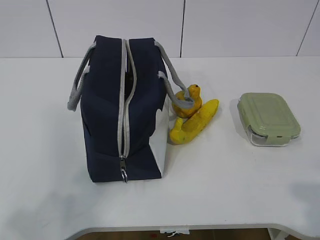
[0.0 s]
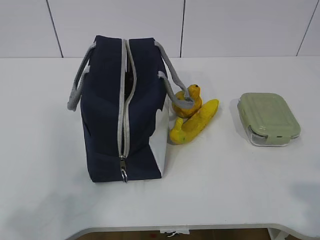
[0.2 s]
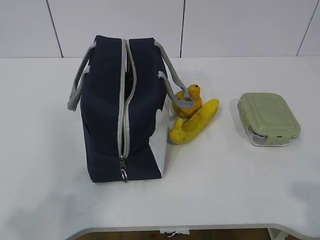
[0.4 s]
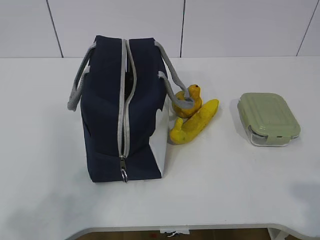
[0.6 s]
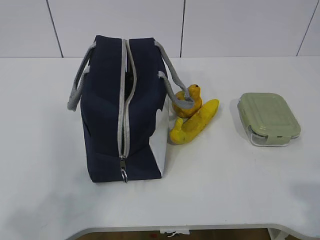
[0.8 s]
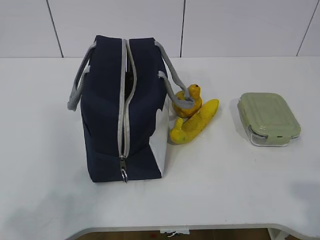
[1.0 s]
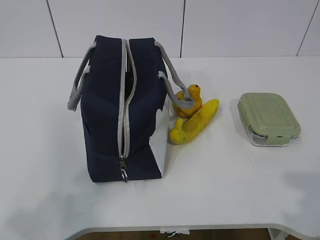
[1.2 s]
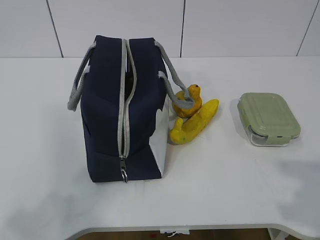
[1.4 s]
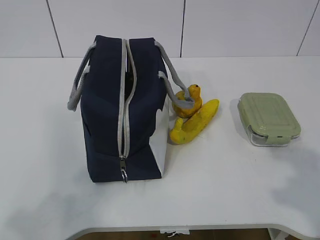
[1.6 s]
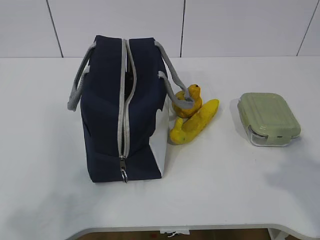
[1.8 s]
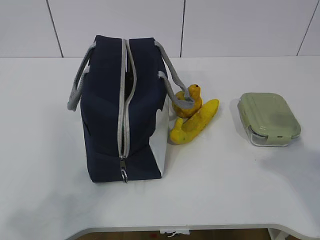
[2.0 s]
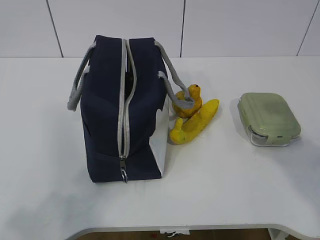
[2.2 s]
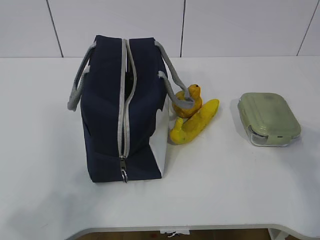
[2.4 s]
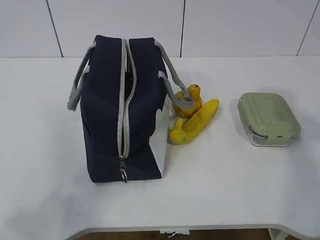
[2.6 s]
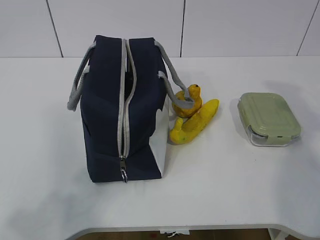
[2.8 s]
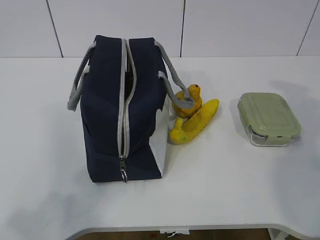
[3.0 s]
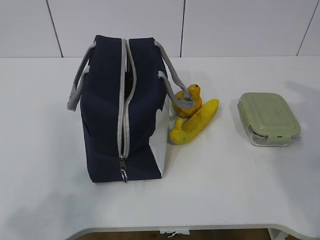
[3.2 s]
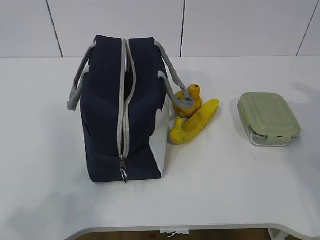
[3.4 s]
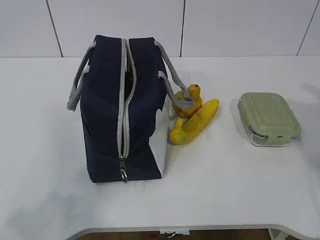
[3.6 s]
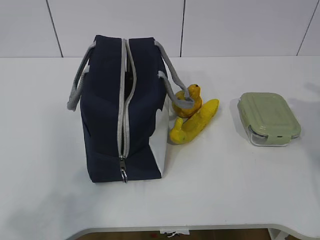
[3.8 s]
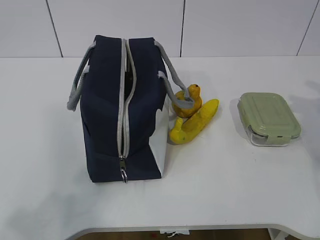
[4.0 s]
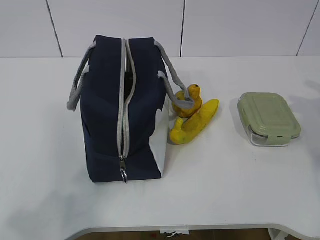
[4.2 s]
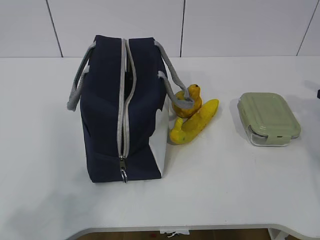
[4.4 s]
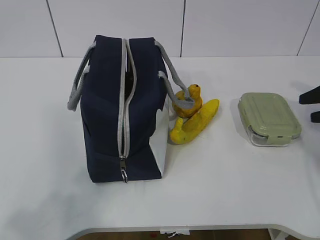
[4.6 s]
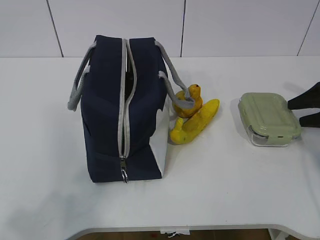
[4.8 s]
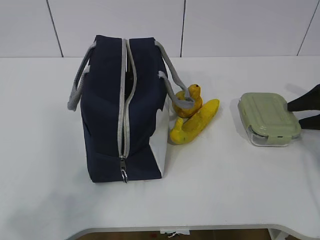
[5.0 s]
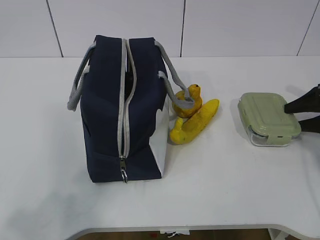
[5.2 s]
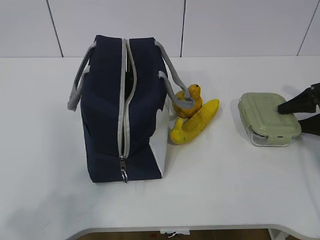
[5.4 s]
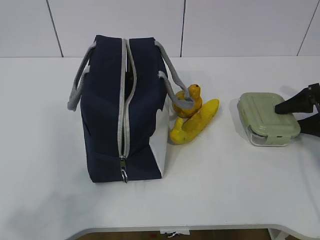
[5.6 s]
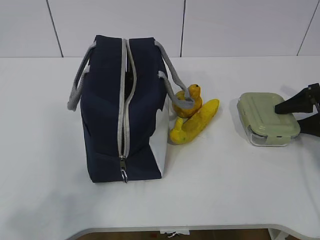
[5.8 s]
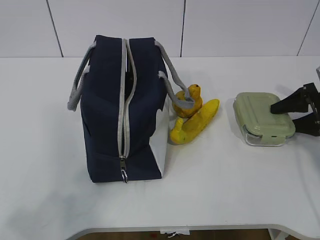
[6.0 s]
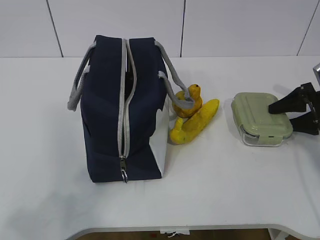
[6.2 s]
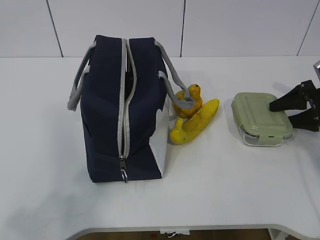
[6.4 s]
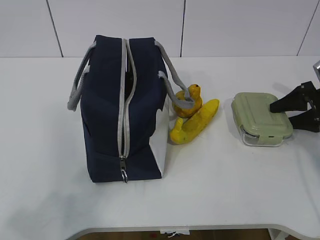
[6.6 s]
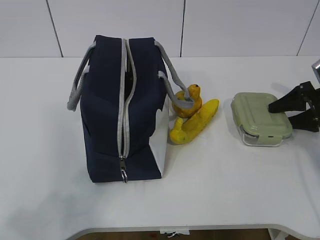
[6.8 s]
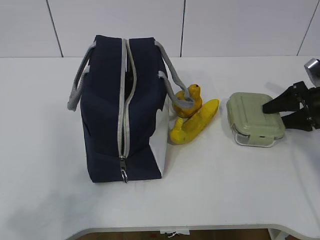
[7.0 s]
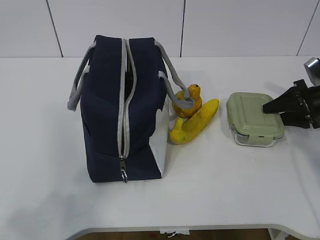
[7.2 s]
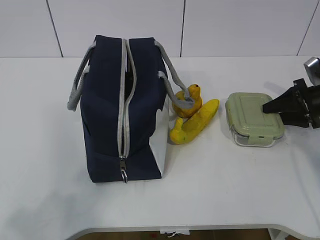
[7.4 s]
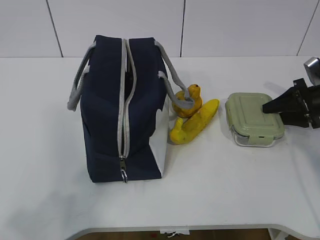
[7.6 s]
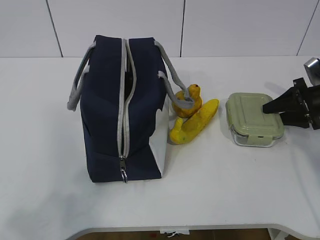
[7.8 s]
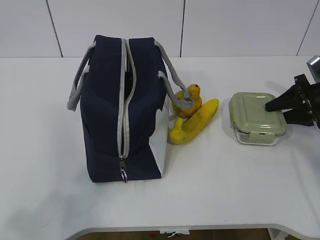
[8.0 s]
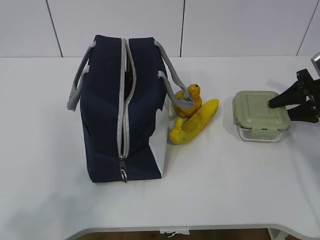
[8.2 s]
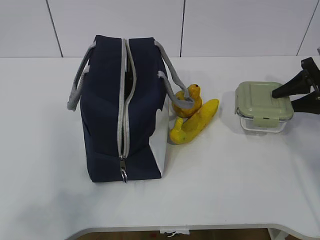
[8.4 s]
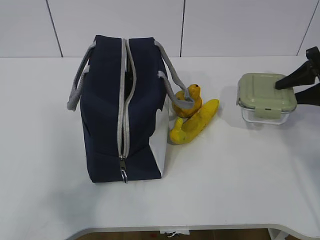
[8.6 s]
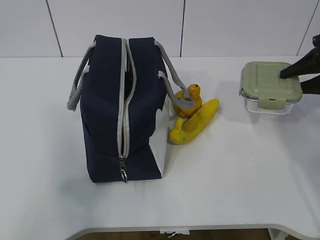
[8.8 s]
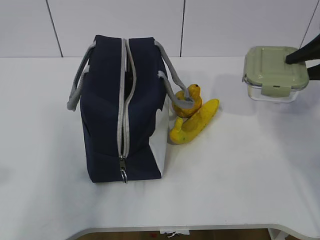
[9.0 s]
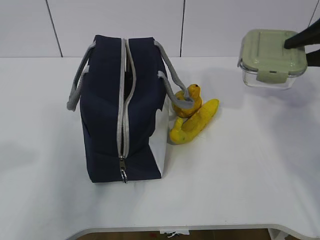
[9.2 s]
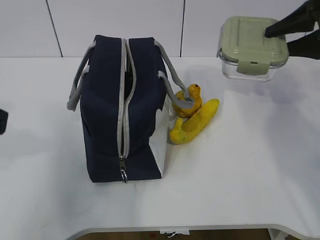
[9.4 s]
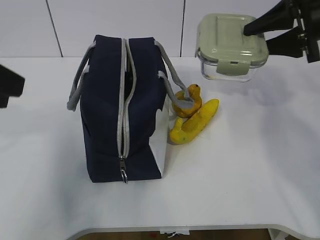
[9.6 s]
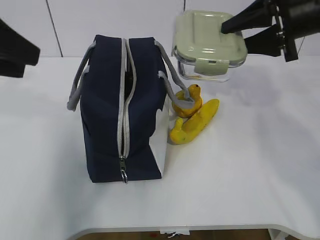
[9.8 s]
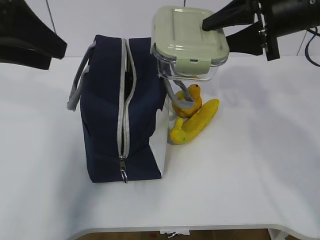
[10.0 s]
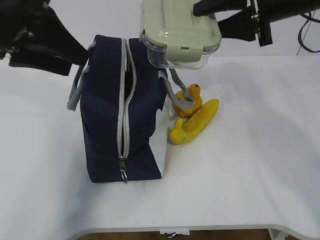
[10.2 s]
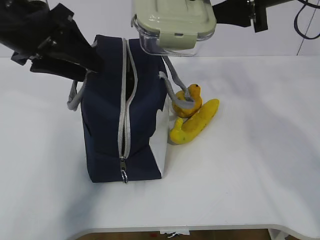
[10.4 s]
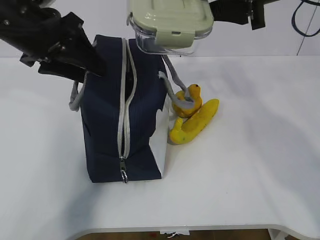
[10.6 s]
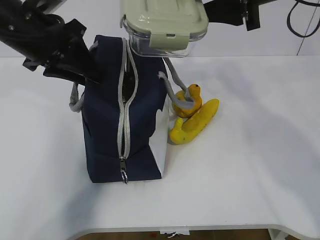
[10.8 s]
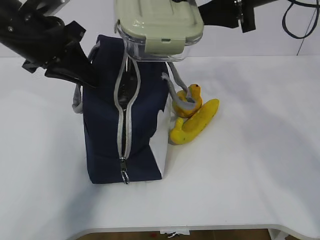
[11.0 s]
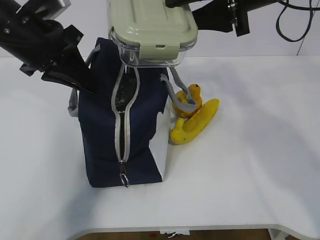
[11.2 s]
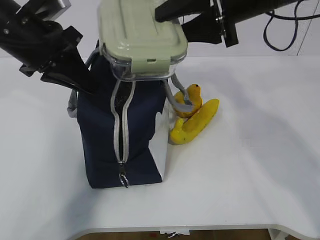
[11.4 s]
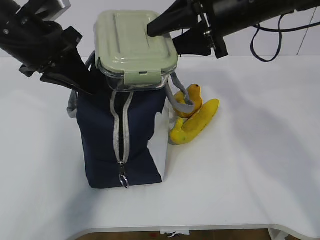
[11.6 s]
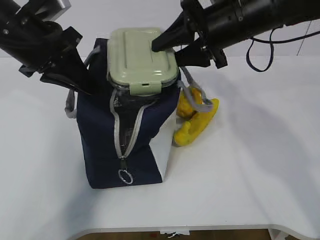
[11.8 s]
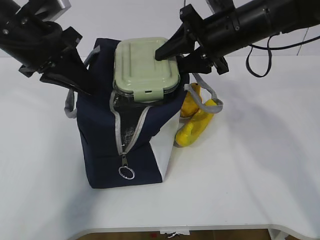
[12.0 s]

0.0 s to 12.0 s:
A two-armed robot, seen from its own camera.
Step, 0.0 to 6.0 s: Grab the lunch box with your right hand.
Step, 6.2 to 9.6 s: Grab the lunch bag with your left hand.
Step, 9.8 to 11.8 s: Place it into the bag with your right hand.
1.6 to 3.0 s: The right gripper moves forward, about 20 cm.
4.4 to 6.0 s: The right gripper heads to the left and downward, covering about 10 cm.
6.0 to 7.6 s: The right gripper closes up.
7.6 to 9.0 s: The right gripper goes about 15 cm upward.
9.0 to 10.4 s: The left gripper heads forward, covering about 25 cm; the right gripper goes approximately 20 cm to the left and upward.
10.4 to 12.0 s: The left gripper closes up. Meanwhile the right gripper goes roughly 10 cm downward.

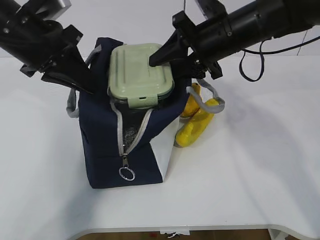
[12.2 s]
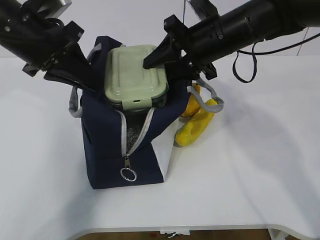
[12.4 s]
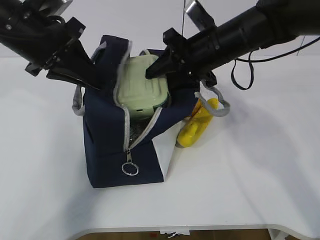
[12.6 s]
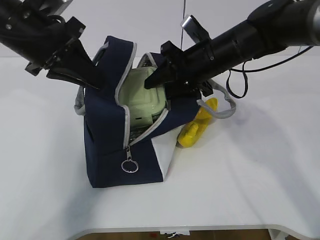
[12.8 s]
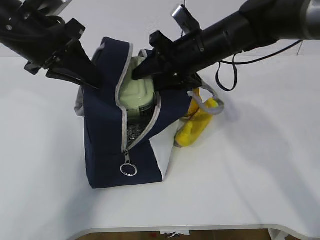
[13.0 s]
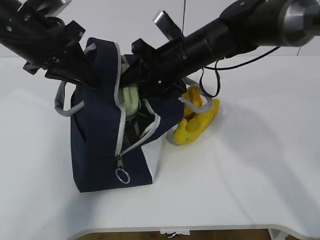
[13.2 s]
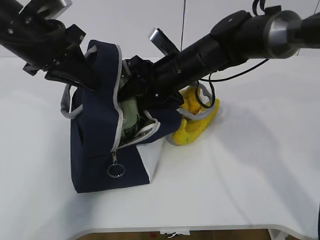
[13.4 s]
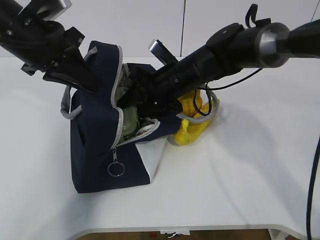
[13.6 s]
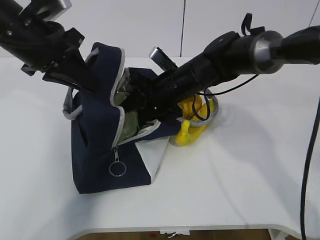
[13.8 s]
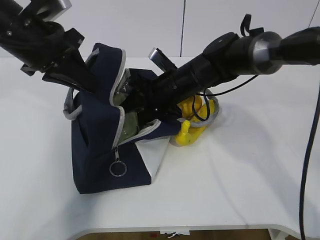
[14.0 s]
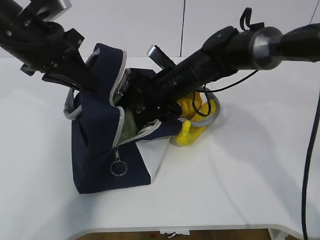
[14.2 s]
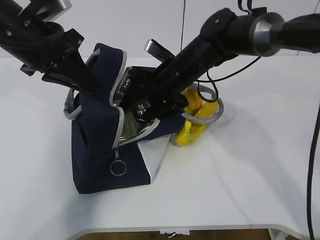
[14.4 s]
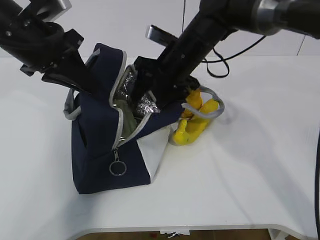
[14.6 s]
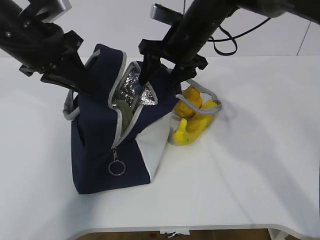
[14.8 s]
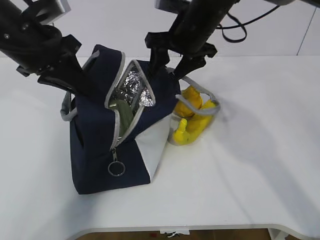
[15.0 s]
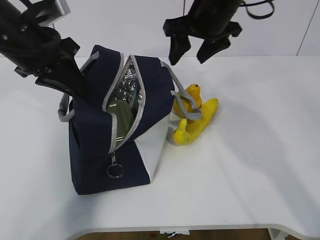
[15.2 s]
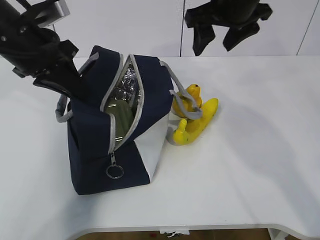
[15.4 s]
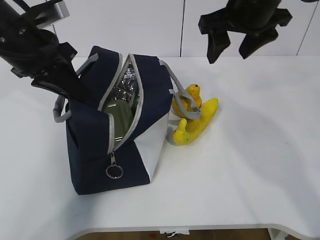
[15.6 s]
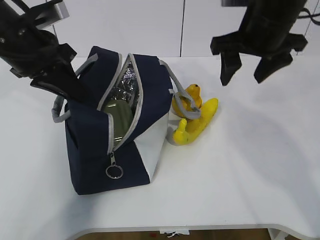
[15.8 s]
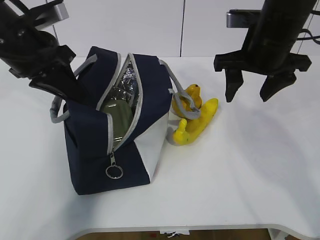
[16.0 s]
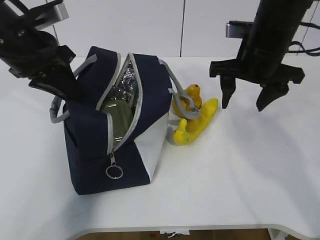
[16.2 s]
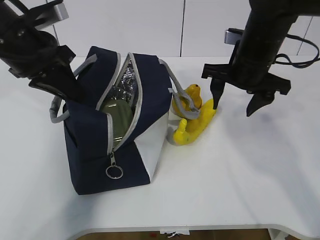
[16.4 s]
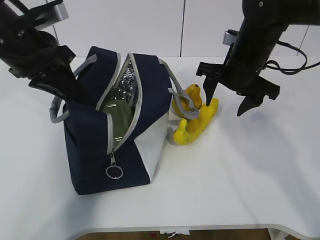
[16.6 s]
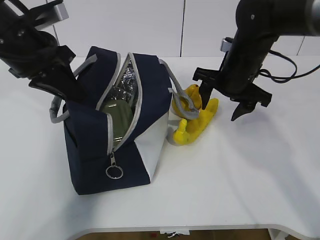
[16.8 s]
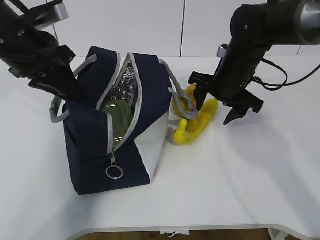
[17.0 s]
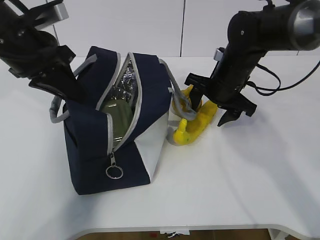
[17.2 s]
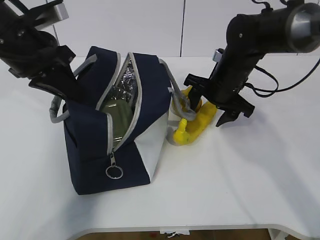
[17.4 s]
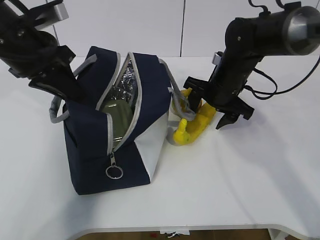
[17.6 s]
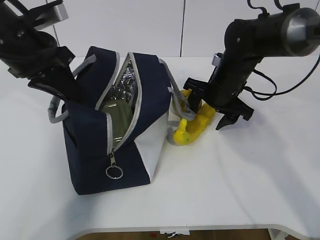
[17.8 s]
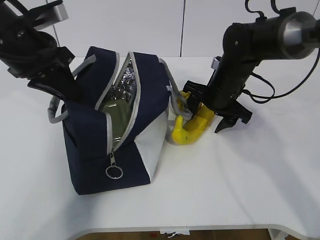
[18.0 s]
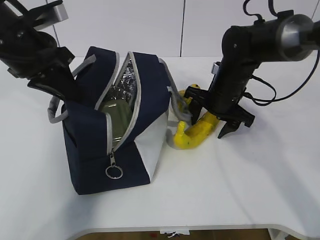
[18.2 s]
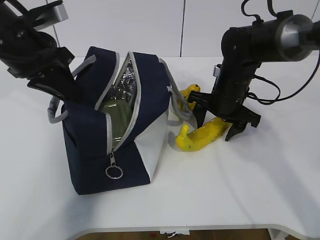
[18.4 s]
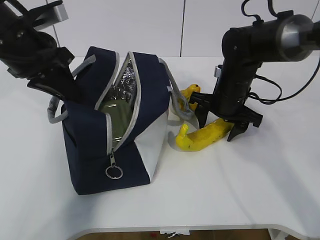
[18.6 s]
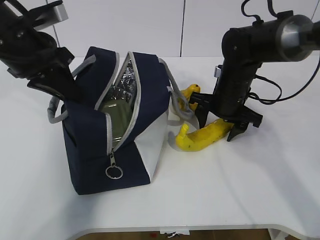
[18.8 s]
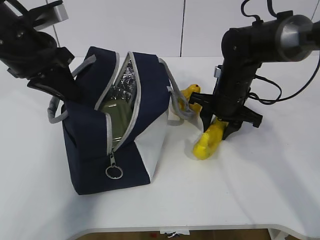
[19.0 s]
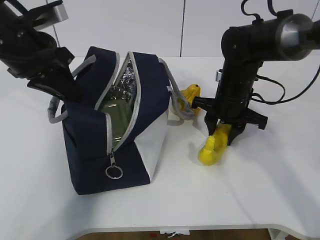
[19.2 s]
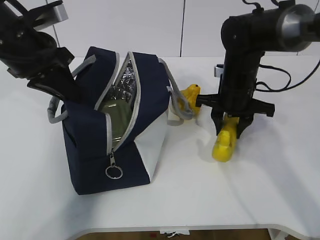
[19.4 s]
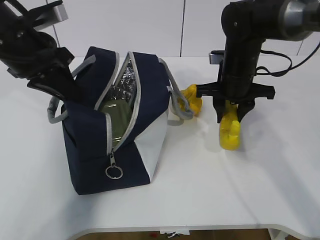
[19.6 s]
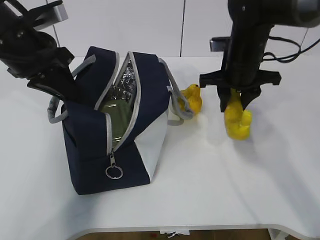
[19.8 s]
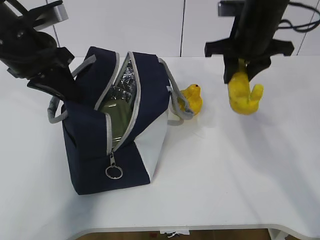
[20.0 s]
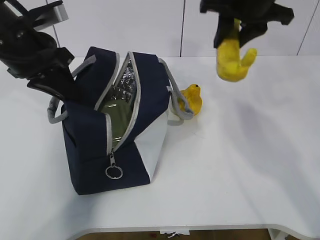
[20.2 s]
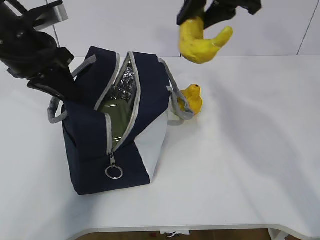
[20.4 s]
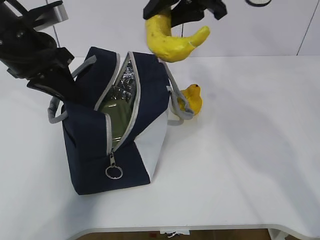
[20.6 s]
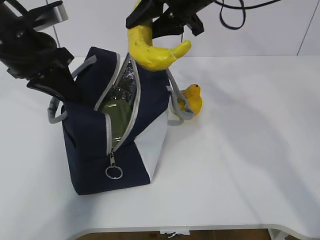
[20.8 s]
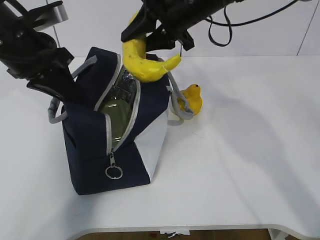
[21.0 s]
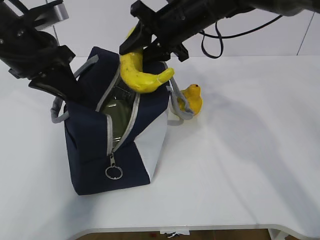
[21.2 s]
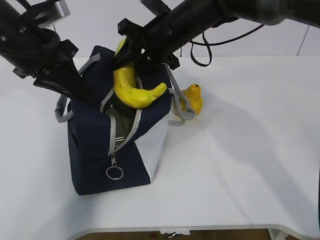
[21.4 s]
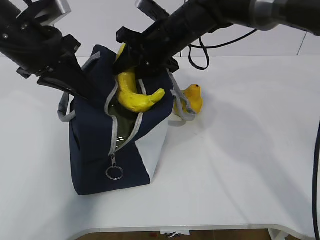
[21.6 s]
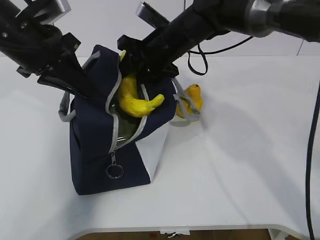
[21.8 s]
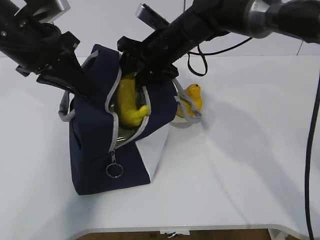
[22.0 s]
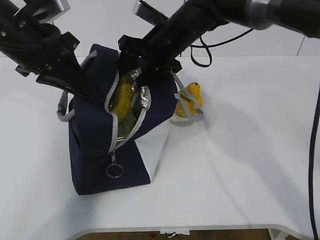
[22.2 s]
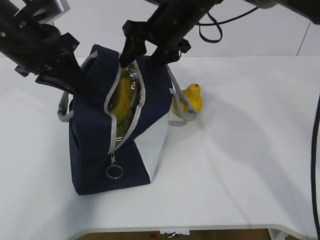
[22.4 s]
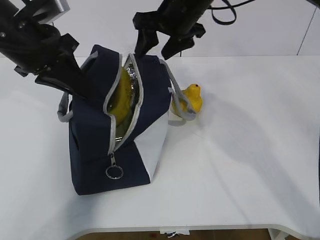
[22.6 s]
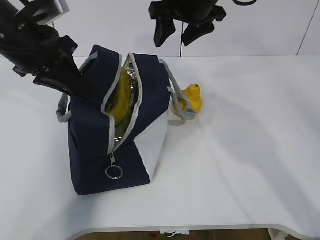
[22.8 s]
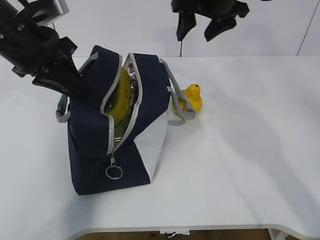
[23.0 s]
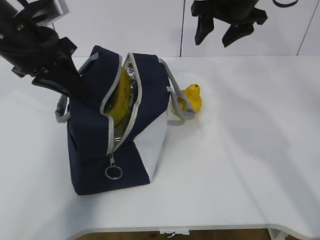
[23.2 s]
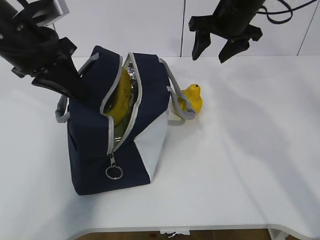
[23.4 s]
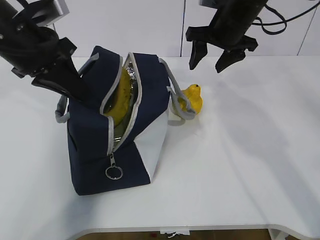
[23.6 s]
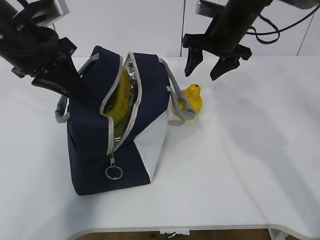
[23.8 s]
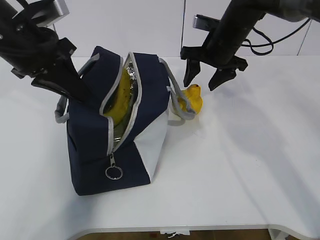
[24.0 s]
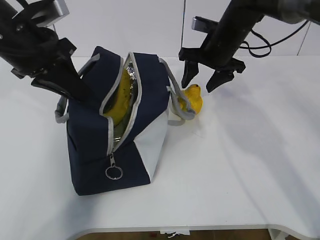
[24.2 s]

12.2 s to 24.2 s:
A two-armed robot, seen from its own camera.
Step, 12.2 to 15.8 s: Grab the banana with your right hand.
Step, 16.0 to 18.4 s: Place it into the bag with your right hand.
Step, 18.6 to 20.6 s: Grab the pear with your right hand.
Step, 23.0 to 23.6 s: Grab the lunch bag with your right hand.
12.2 to 13.8 s: The right gripper heads downward and to the left, covering about 10 cm.
13.8 to 15.2 s: The right gripper moves upward, roughly 15 cm.
15.2 to 16.6 s: The right gripper shifts roughly 10 cm downward.
16.6 to 18.2 s: The right gripper travels downward by roughly 5 cm.
18.2 to 19.8 s: The right gripper moves upward, some 5 cm, and closes up.
19.8 to 21.2 s: The right gripper moves to the left and upward, approximately 10 cm.
21.2 to 22.6 s: The right gripper opens its fingers.
22.6 to 24.2 s: The right gripper travels to the right and downward by about 10 cm.
